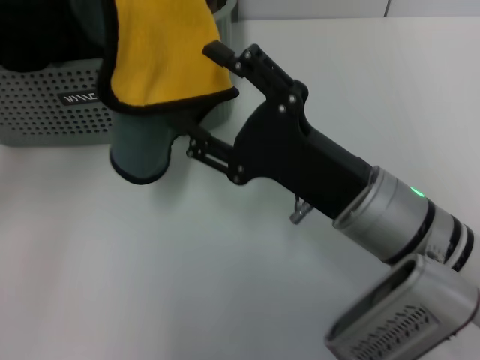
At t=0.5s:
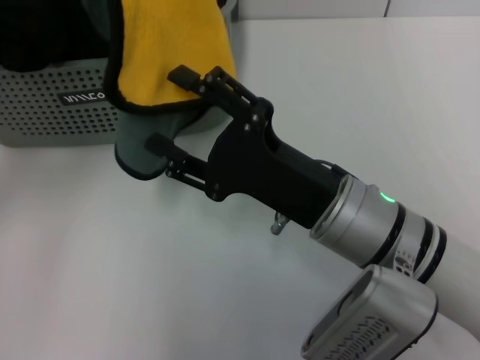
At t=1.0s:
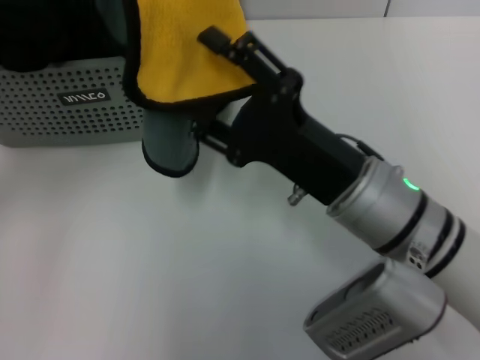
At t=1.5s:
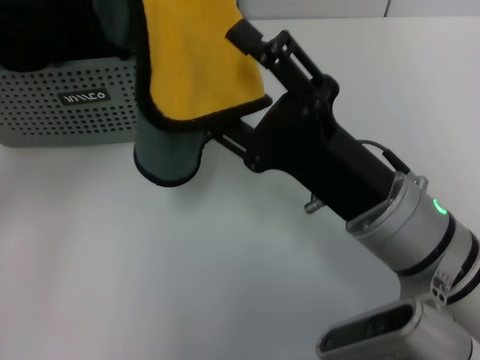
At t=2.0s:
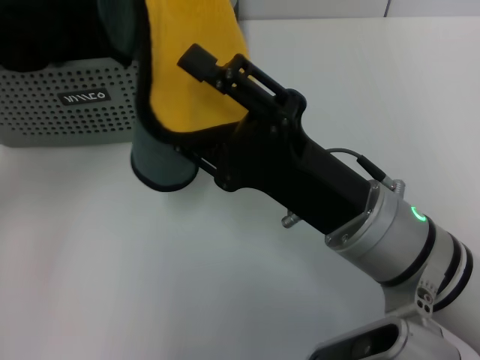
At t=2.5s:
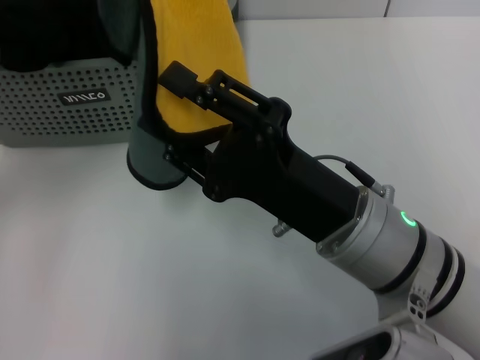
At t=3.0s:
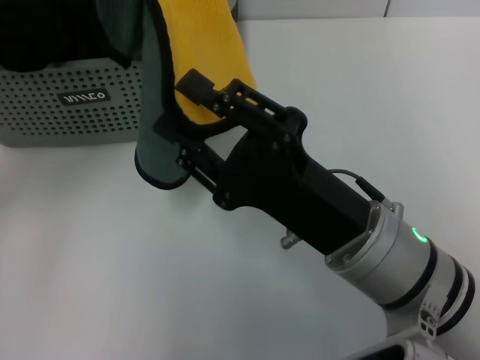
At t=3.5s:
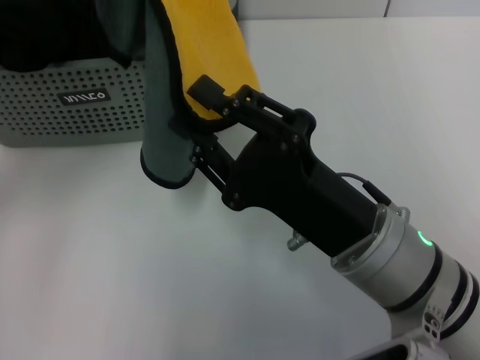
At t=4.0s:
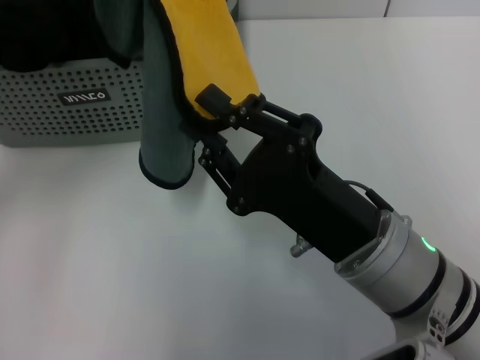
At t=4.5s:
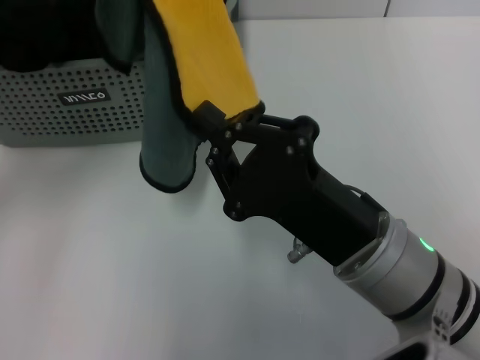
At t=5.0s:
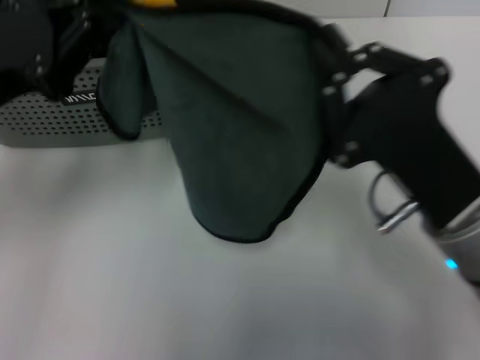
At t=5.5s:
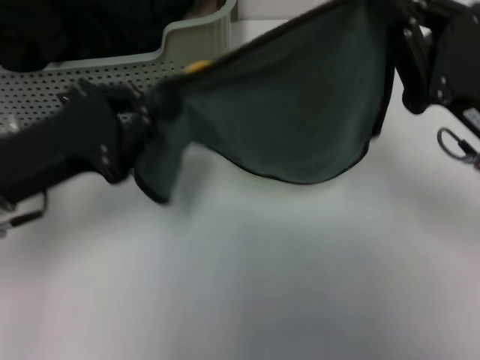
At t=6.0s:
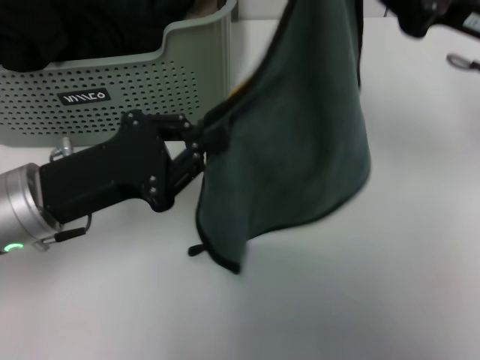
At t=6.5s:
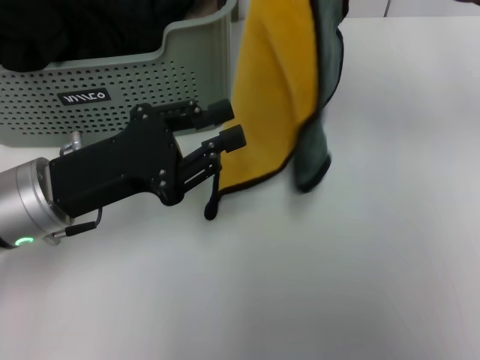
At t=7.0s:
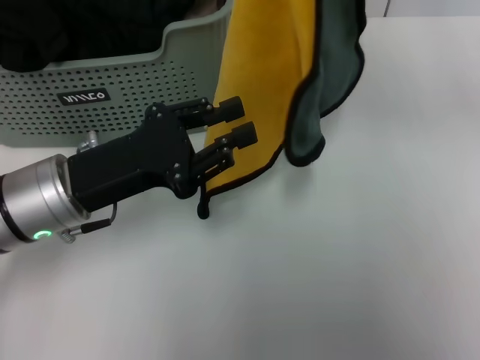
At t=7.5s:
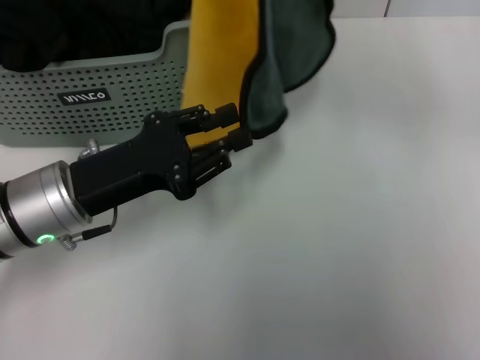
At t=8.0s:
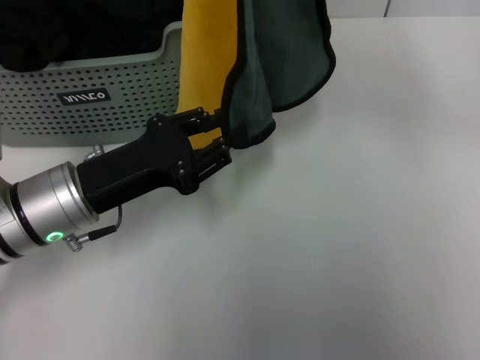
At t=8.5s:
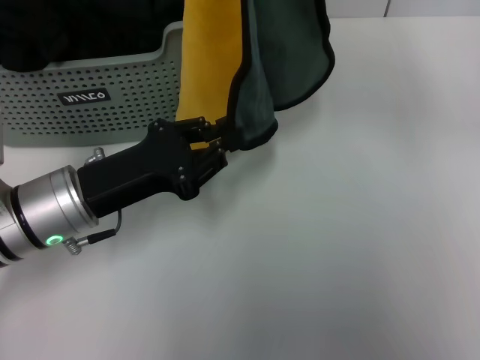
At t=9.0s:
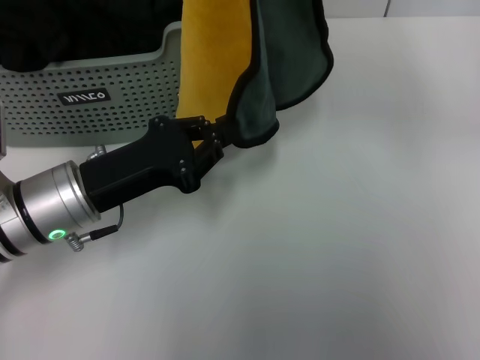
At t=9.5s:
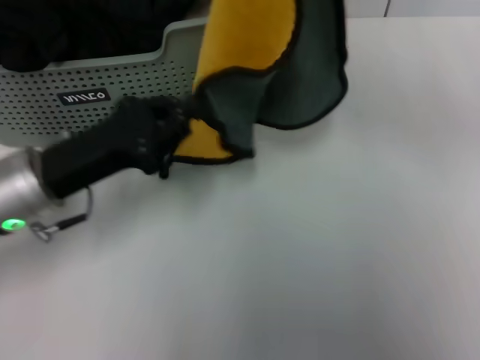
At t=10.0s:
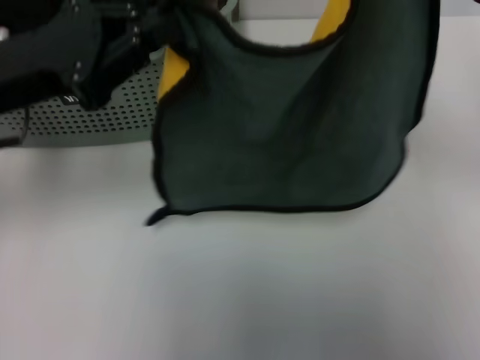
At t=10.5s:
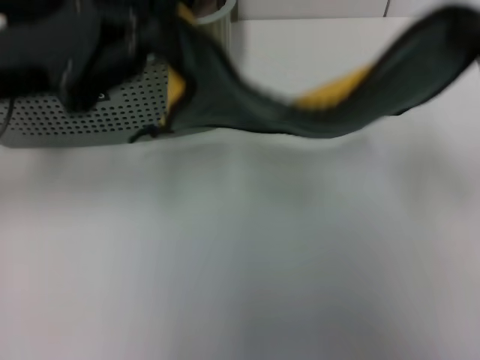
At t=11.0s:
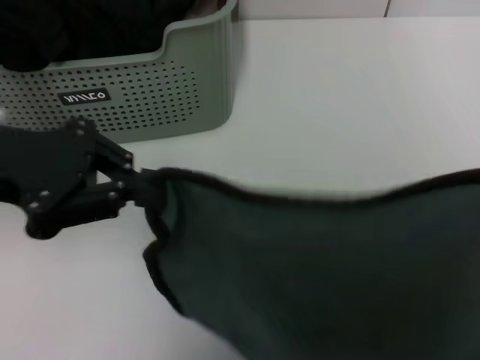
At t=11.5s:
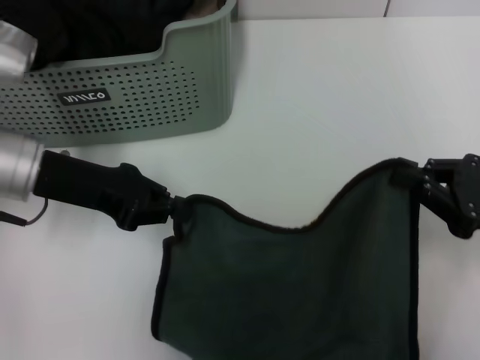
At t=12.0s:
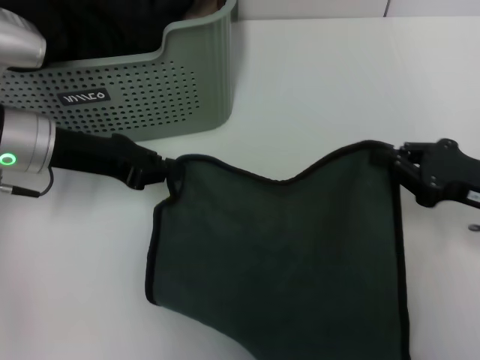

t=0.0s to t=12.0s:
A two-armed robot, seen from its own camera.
Task of the whole recording: pick up the towel from the storage box and lay it flat on the table.
Step, t=0.0s to t=4.0s: Spread the towel flat with the left gripper.
t=2.0s to t=4.0s: The right gripper closes its fingers.
t=4.0s to t=6.0s: The right gripper heads forward, to the right and upward, covering some 20 cm, and closes, while the left gripper goes roughly 10 cm downward.
t=6.0s to t=8.0s: The right gripper shifts roughly 10 cm upward and to the left.
t=8.0s to t=10.0s: The right gripper is displaced to the right and backward by roughly 10 cm; the left gripper shifts roughly 10 cm upward.
t=10.0s to t=12.0s: The right gripper heads downward, covering roughly 20 cm; the left gripper shifts about 10 cm downward and forward.

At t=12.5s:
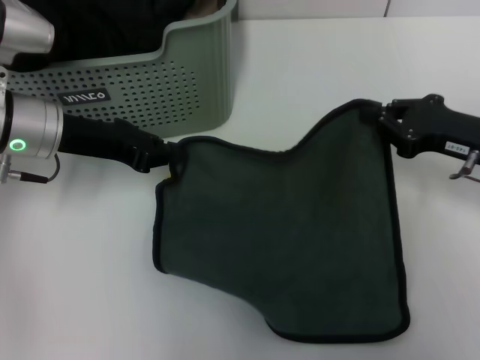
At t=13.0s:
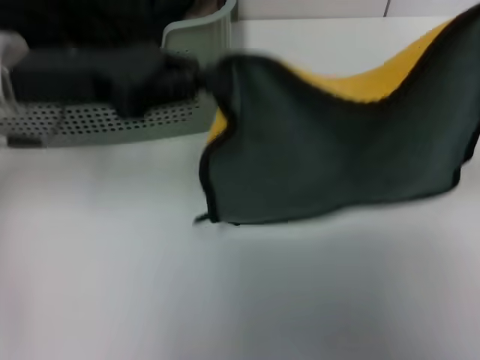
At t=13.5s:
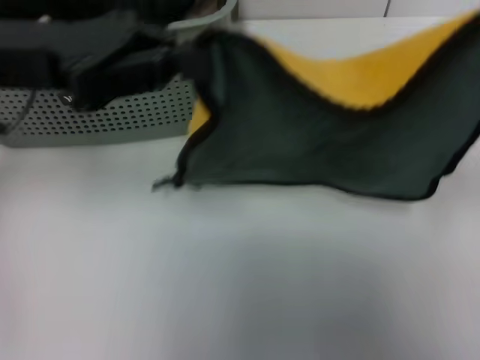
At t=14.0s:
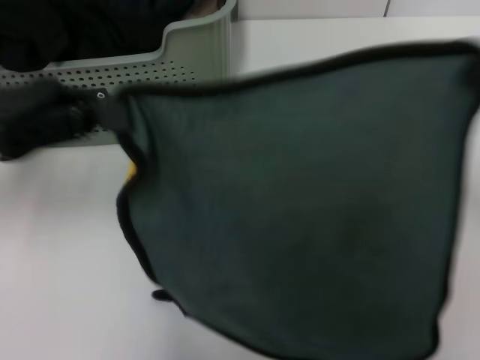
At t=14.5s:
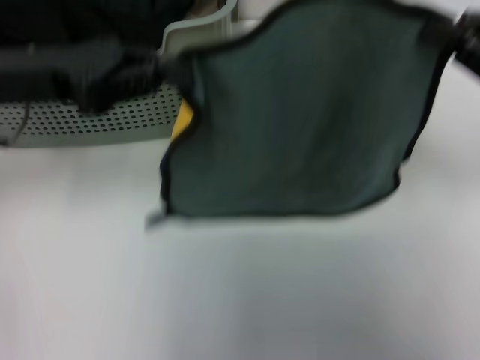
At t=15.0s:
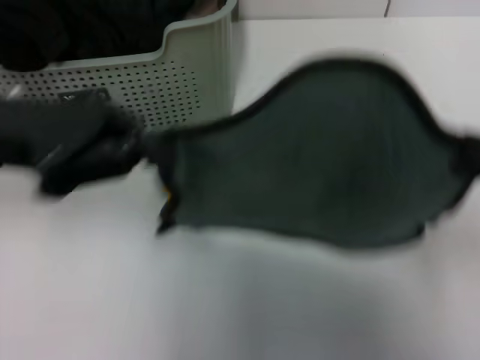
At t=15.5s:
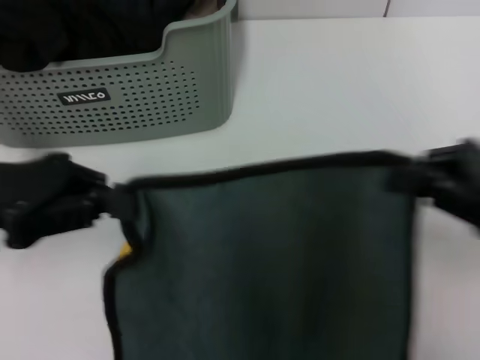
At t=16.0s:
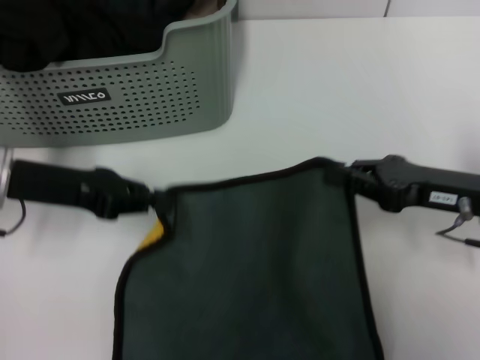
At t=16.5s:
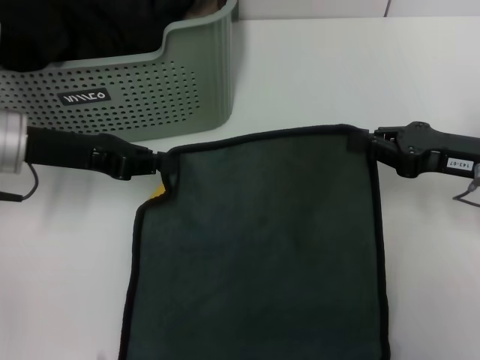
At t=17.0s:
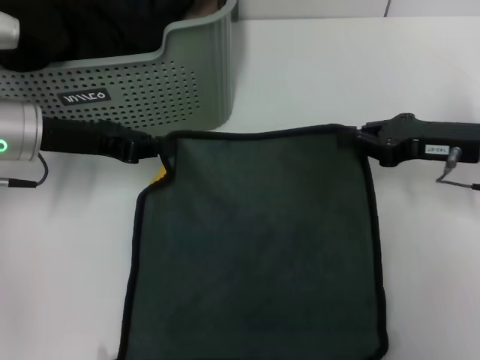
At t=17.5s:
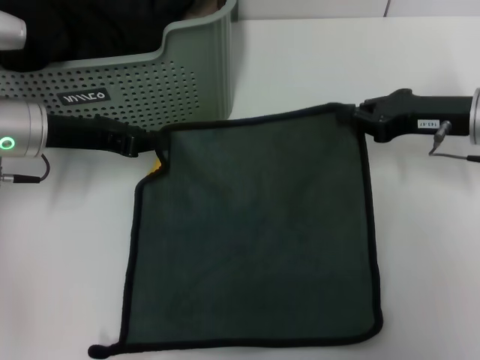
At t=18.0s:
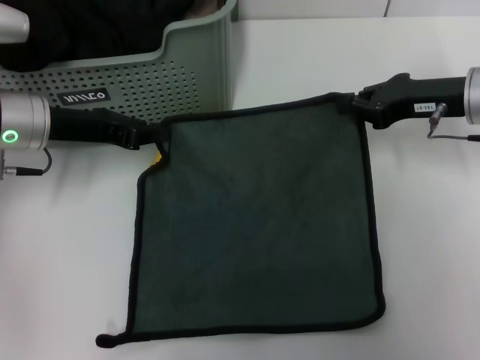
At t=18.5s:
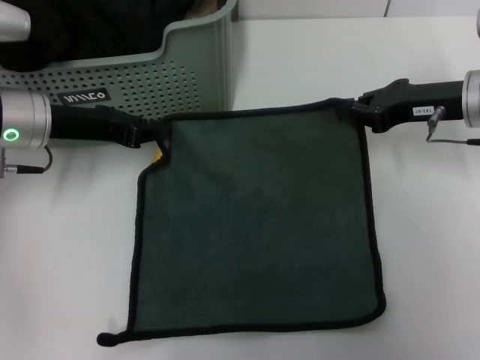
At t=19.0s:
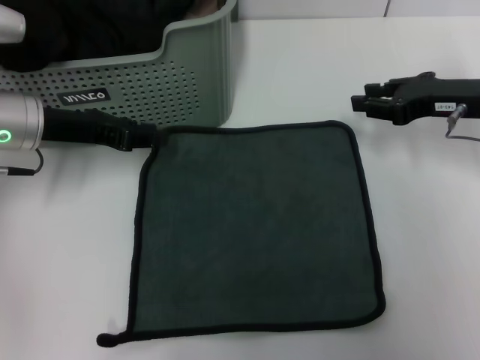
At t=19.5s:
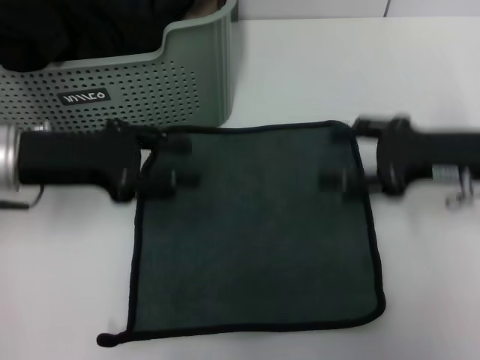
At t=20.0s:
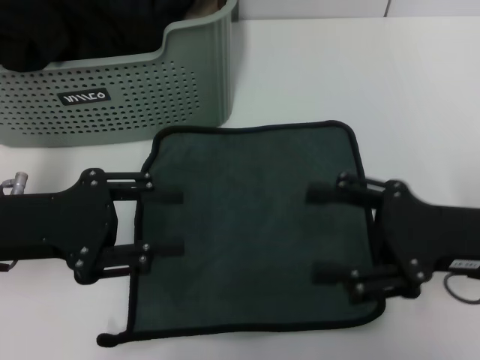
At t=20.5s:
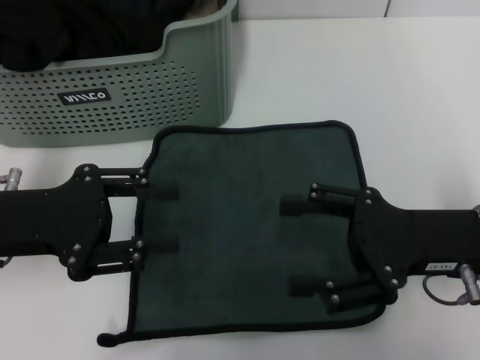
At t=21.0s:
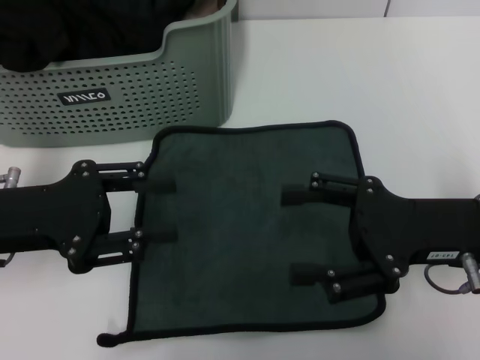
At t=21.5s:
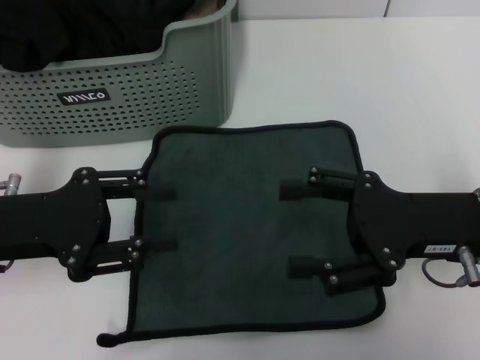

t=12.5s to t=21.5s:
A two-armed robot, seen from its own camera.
Task of the whole recording: pick up the towel from the storage box and lay it flat on the table.
Step, t=12.5s to t=18.5s: Spread the towel flat with the right gripper.
t=12.5s to t=14.5s: The grippers both shift upward by approximately 10 cm.
t=14.5s to t=17.0s: The right gripper is displaced downward and forward by about 10 cm, while the left gripper travels downward by roughly 10 cm, and moves some 5 cm backward and comes back.
t=17.0s to t=19.5s: The left gripper opens up. Meanwhile the right gripper opens up.
t=19.5s to t=21.5s: Both grippers travel together backward, about 5 cm.
